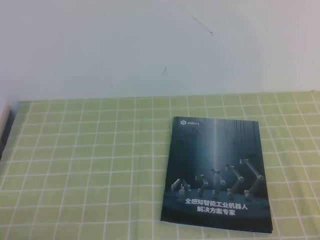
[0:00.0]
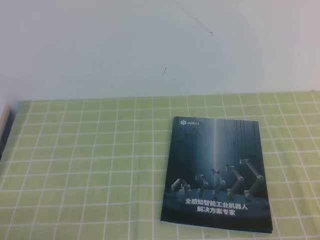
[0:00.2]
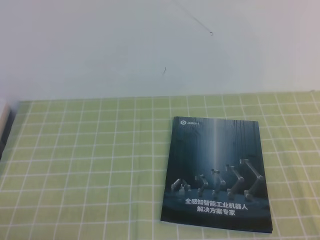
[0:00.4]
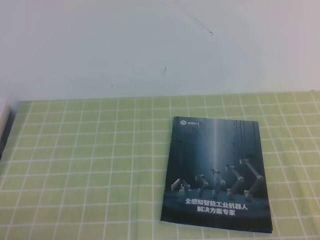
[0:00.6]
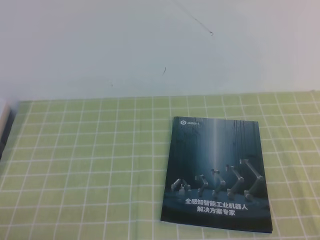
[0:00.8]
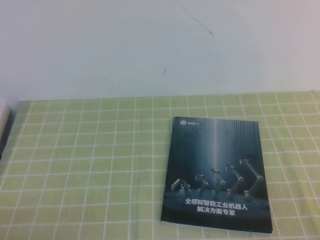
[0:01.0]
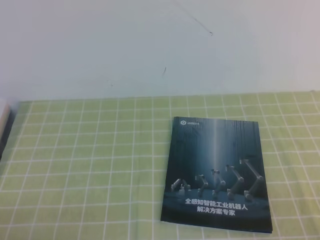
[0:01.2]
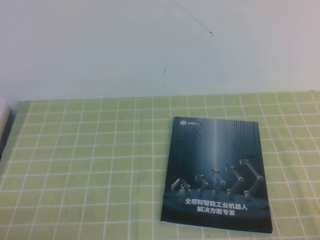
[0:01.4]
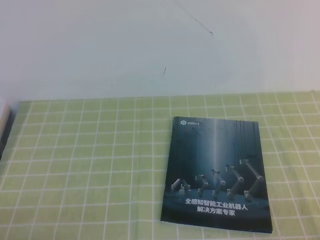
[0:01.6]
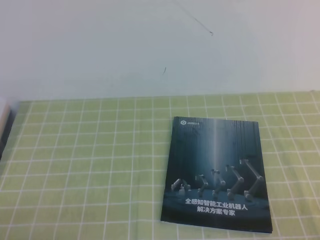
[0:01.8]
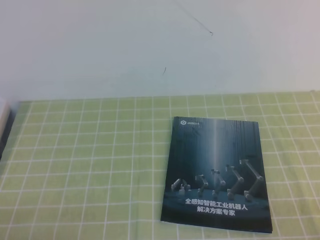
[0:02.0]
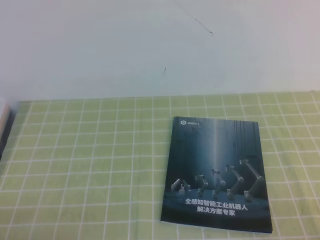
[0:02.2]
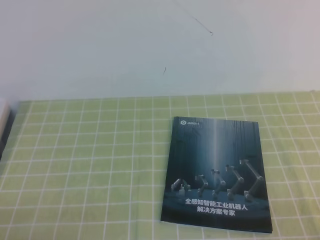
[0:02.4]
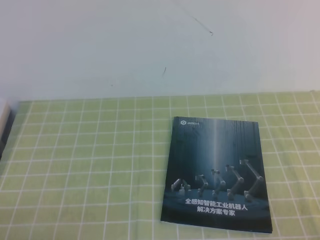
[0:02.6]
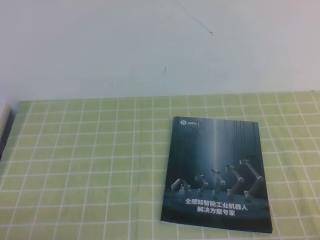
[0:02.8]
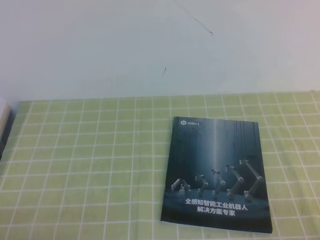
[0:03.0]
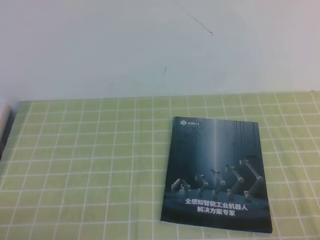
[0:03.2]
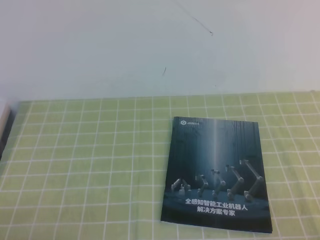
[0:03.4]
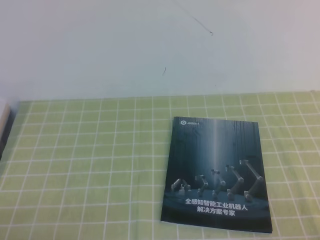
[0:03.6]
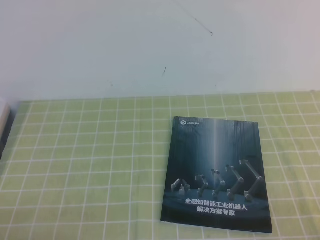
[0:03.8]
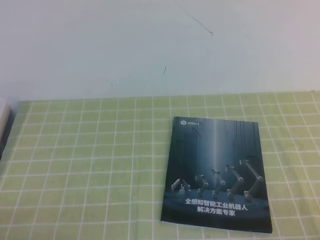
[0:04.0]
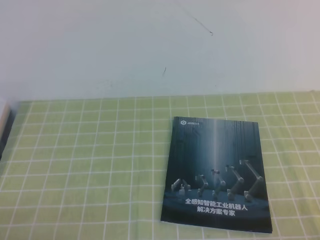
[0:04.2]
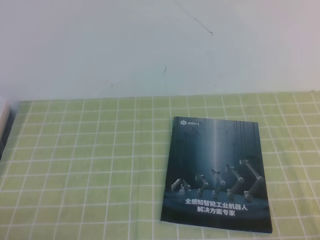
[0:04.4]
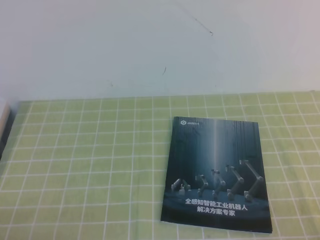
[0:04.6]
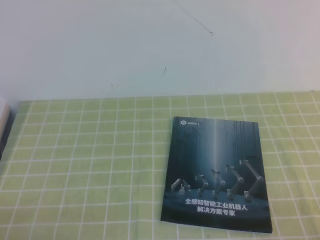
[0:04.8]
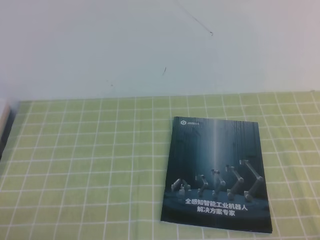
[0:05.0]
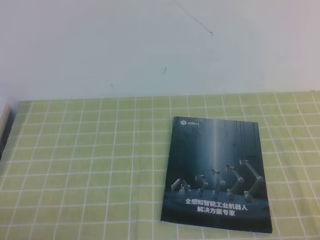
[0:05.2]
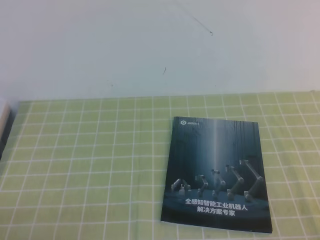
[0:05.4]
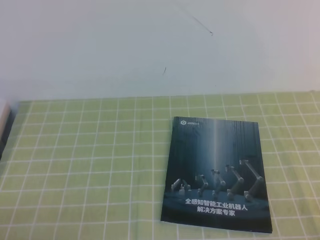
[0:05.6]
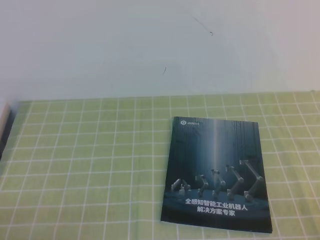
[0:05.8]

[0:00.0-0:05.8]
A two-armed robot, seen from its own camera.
Task of the whole recording: on the green tablecloth, hold the book with one hand and close it with the other.
0:02.8 to 0:05.8: Both grippers stay put.
